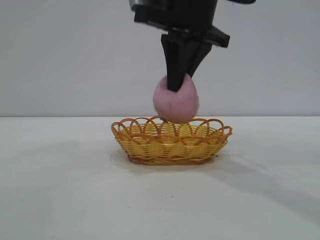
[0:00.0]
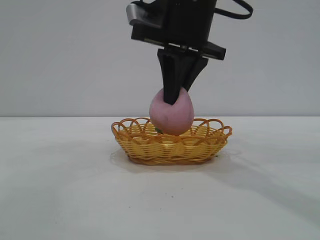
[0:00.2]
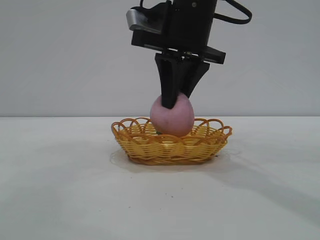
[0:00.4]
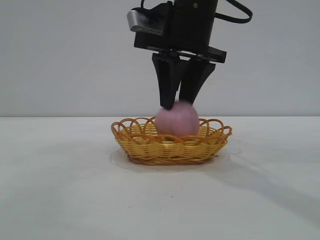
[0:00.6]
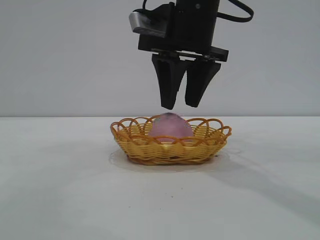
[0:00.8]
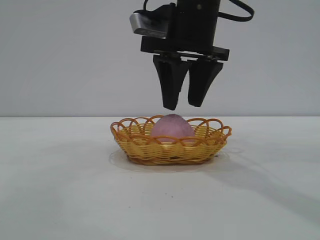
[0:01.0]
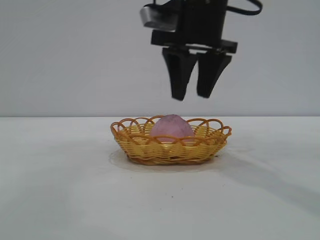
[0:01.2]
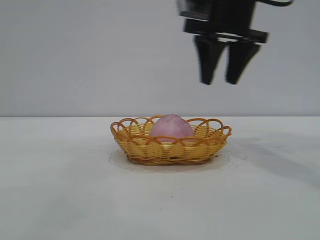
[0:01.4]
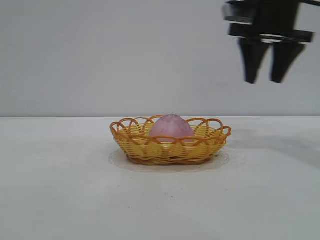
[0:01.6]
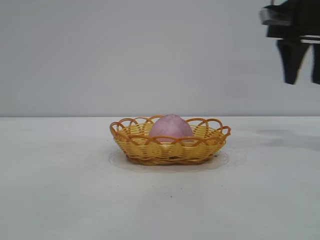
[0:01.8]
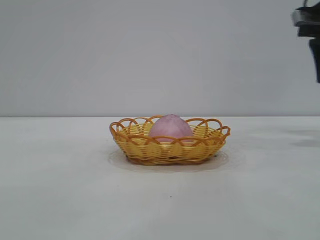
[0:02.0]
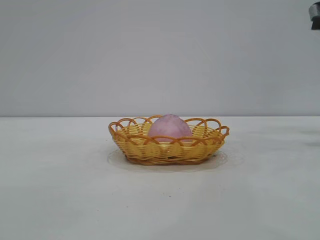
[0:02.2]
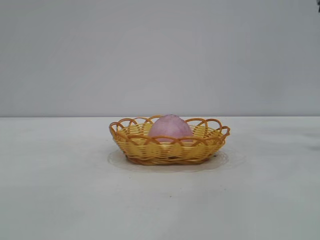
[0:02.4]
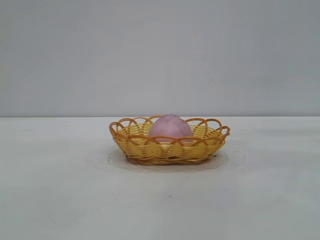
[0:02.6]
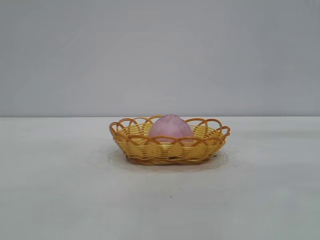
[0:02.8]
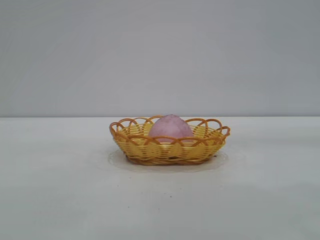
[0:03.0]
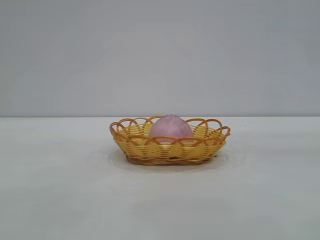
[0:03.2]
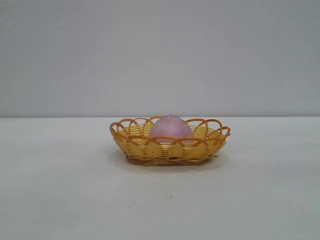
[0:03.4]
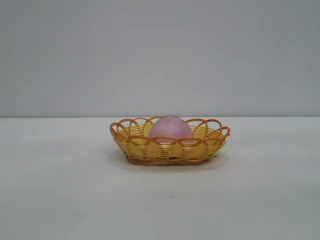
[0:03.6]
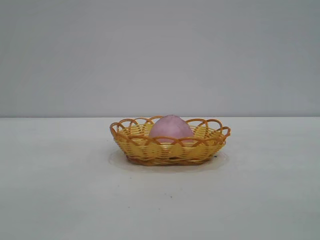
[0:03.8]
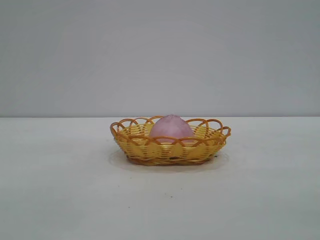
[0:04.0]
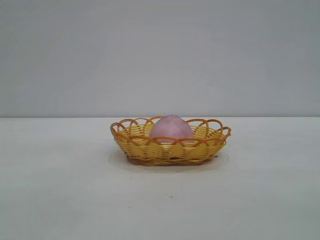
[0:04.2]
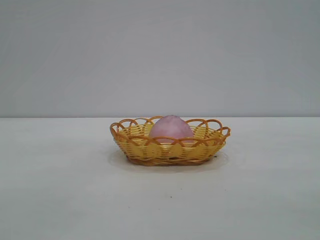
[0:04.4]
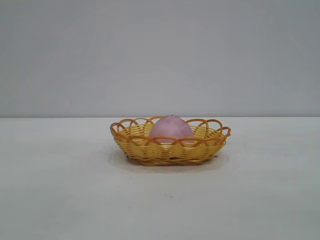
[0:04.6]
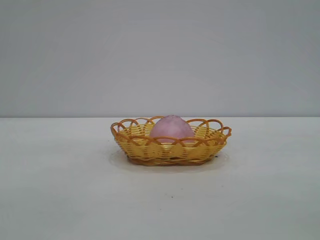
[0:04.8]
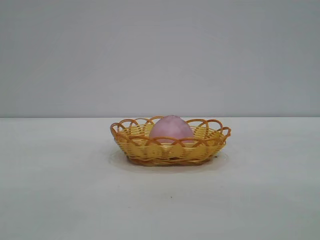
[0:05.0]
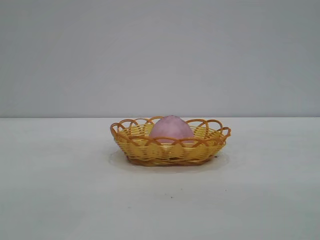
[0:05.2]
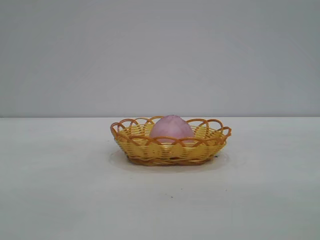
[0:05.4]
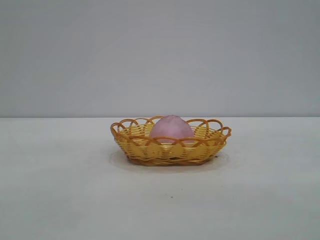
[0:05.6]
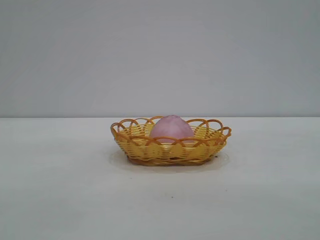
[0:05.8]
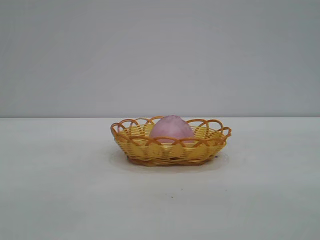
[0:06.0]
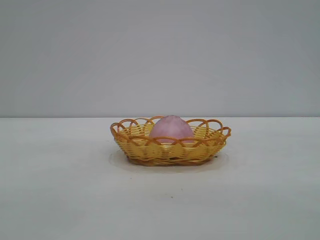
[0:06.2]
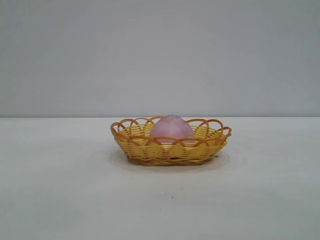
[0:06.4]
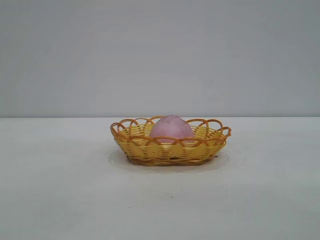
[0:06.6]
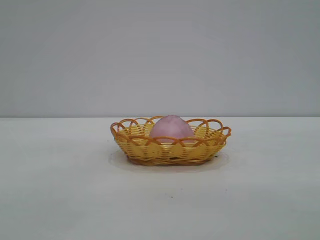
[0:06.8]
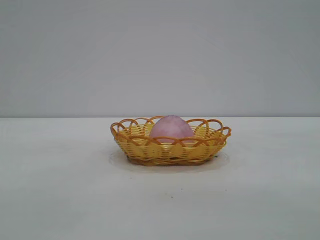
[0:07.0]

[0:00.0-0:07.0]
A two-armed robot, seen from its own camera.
Task of the whole recording: pick up the peach and put it into the basket.
Step, 0:00.0 to 0:01.4: place the peach into the basket.
